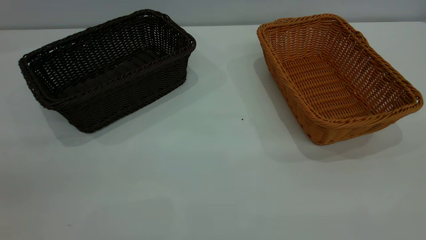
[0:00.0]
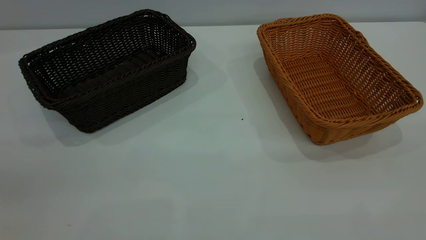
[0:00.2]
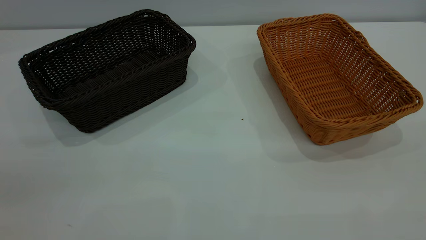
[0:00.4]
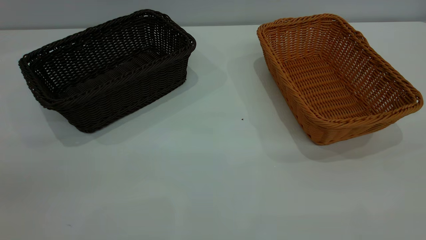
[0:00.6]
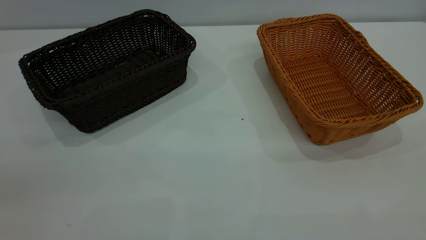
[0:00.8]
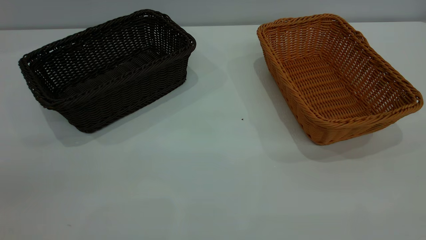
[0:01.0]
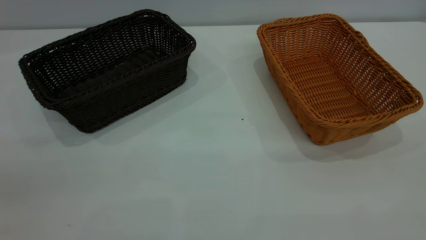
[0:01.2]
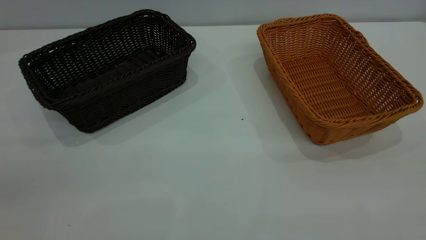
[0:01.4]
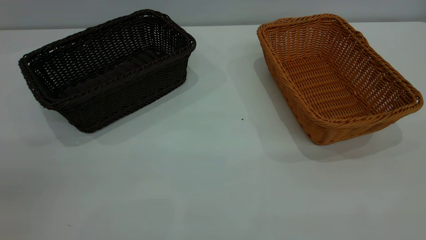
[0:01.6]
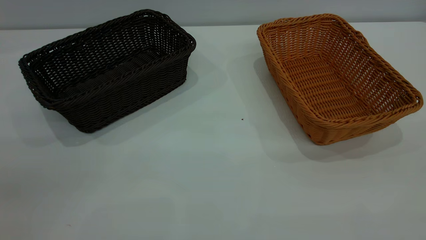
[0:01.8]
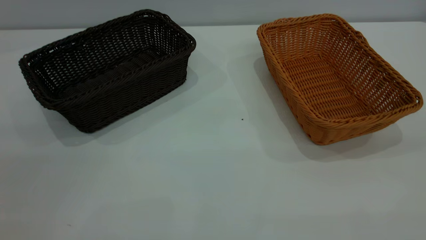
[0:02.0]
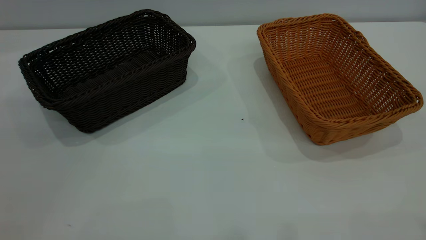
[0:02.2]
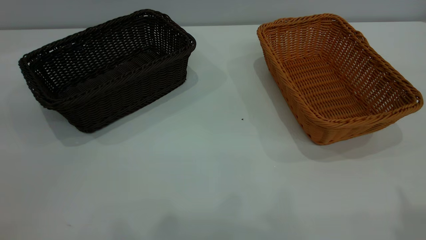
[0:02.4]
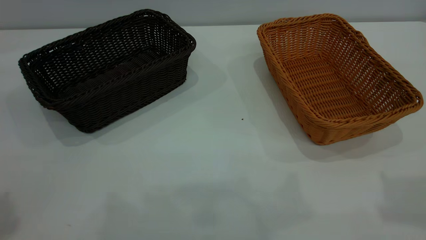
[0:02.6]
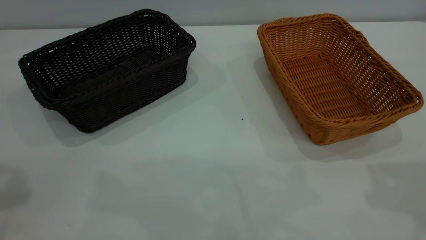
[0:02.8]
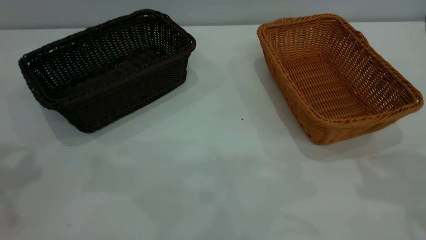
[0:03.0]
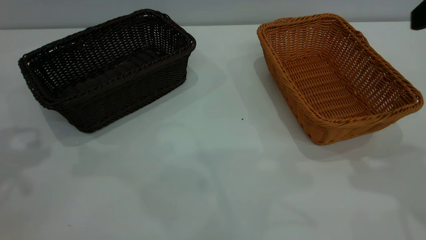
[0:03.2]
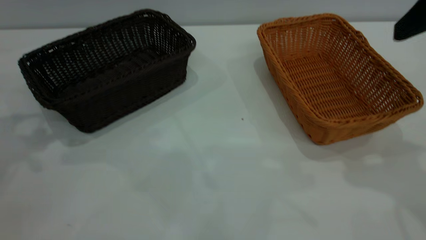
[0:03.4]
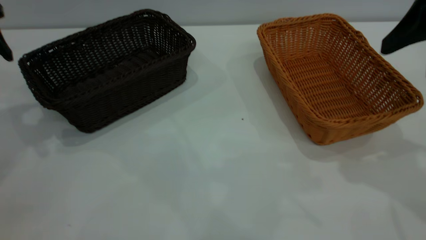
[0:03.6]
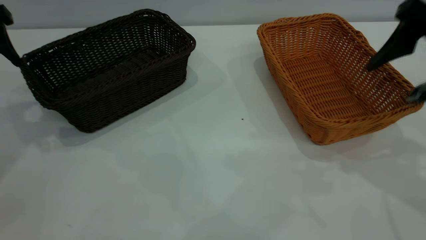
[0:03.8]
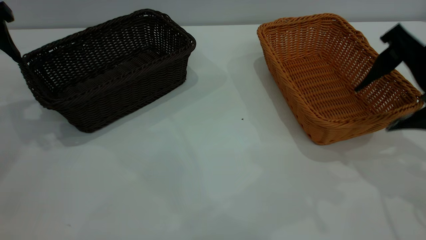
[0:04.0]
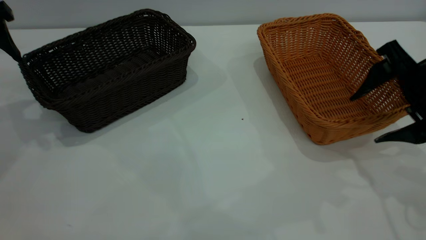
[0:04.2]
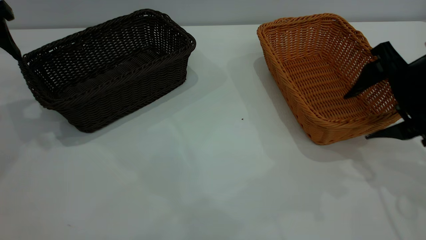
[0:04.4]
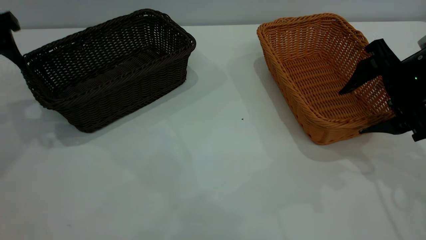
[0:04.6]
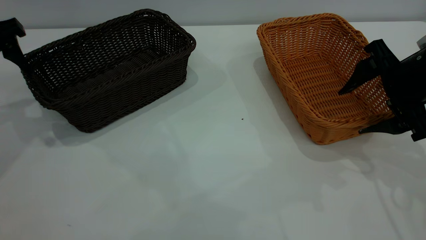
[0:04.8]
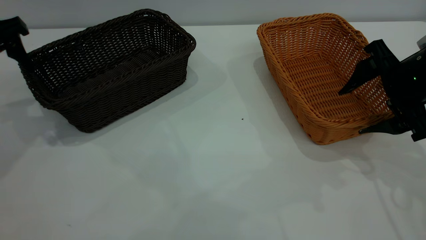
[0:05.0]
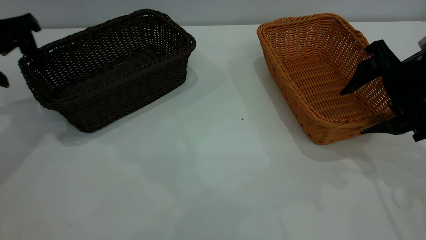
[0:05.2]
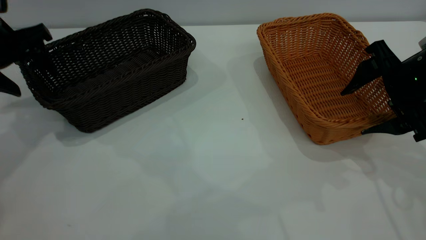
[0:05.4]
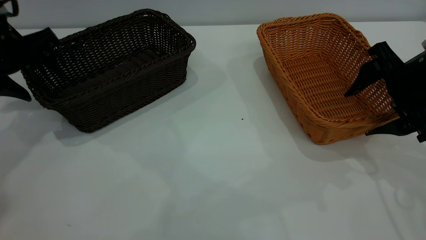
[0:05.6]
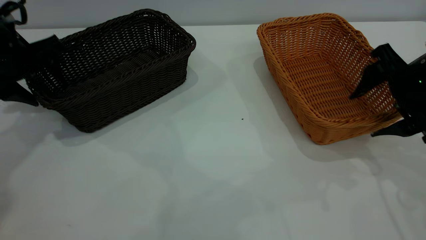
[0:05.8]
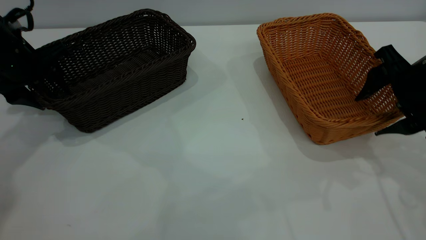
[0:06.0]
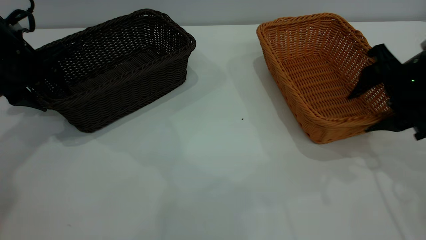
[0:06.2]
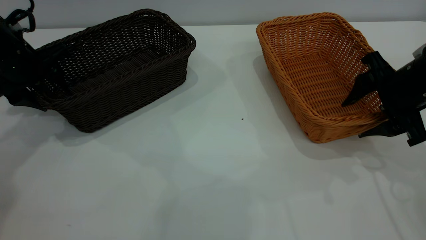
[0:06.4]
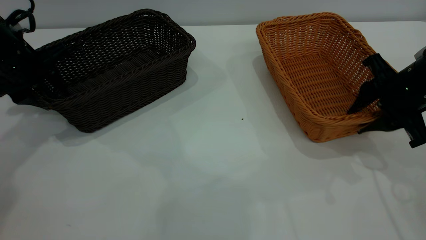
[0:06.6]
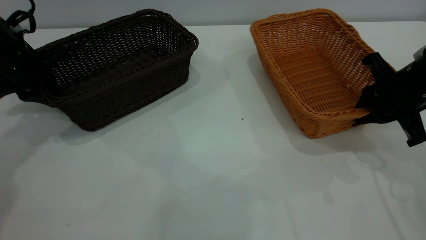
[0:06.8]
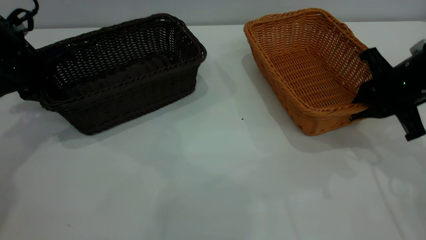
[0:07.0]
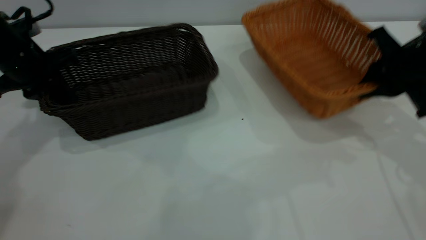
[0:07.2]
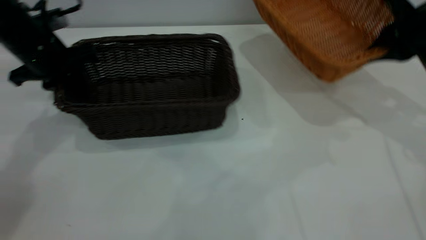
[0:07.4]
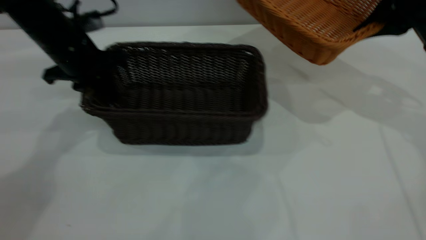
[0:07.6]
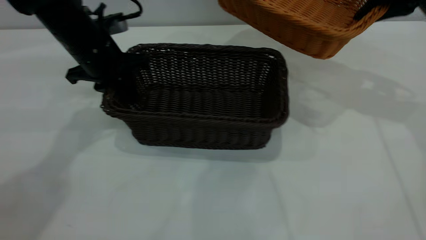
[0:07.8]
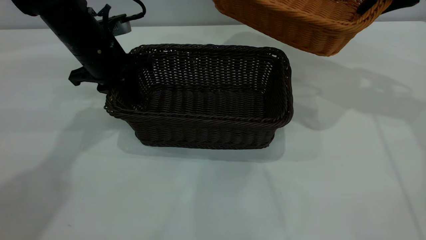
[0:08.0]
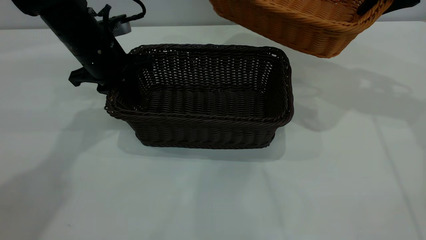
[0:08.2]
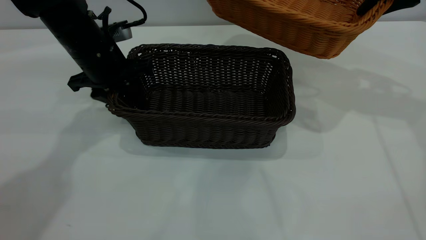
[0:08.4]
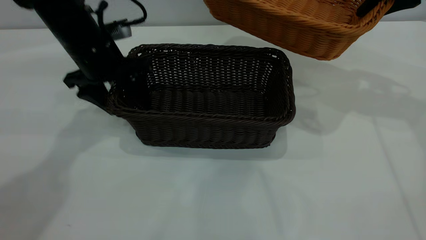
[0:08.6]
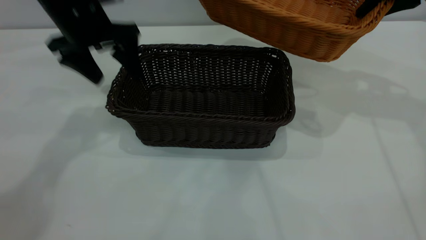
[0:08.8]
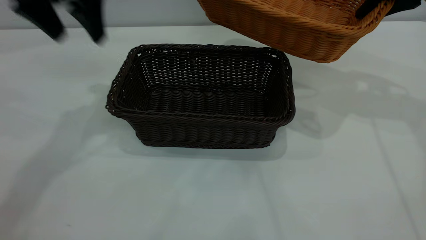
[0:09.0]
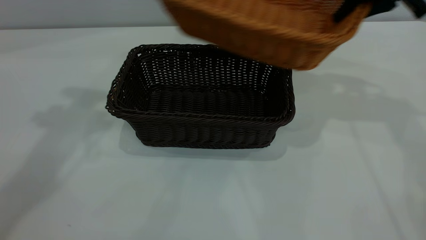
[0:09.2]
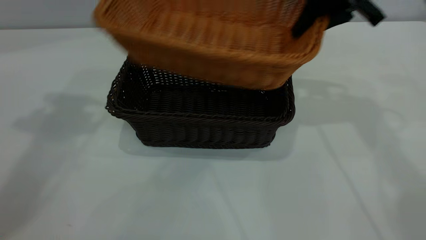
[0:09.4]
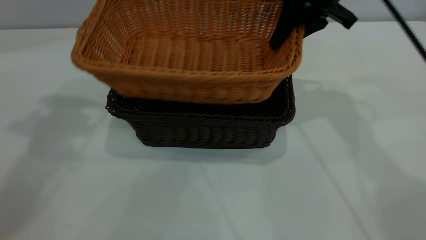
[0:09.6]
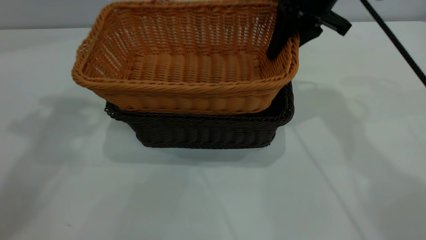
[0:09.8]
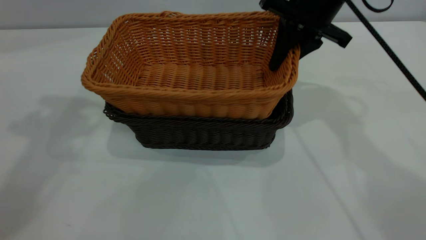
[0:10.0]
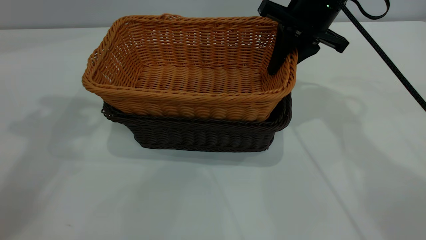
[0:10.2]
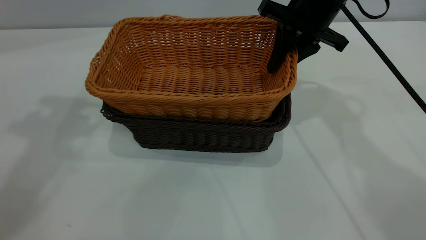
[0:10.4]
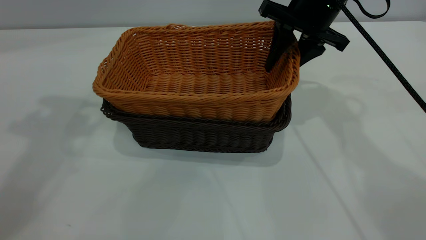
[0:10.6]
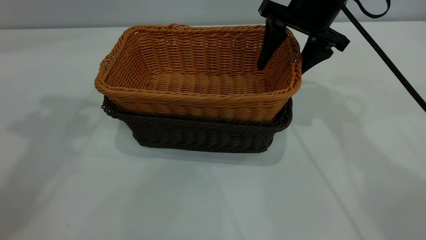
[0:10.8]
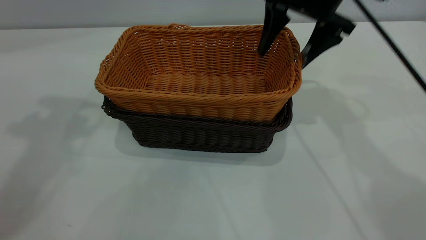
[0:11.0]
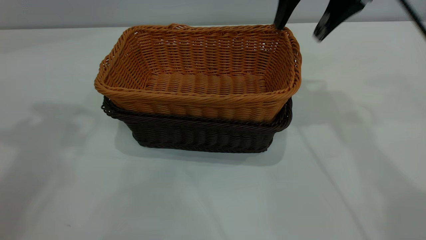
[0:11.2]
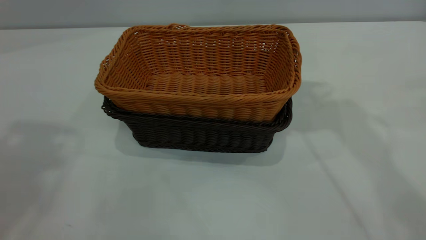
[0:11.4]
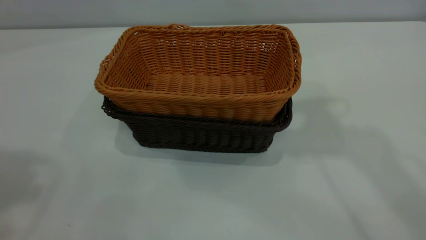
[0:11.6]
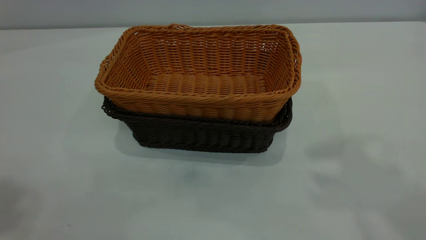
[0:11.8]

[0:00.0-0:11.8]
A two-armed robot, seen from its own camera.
Task of the whole recording: the left gripper grasp the black basket and place it in the center of the table, the right gripper grasp the brown basket and place it inside the black one.
Step, 0:00.0 to 0:07.2: Pick up the light basket with the right gripper.
Step, 0:07.4 to 0:08.8: Move the dark basket to the center of view.
Step, 0:09.0 to 0:11.2: Place the light basket on the dark basket.
0:00.0 to 0:01.4: Neither gripper changes place.
0:03.0 to 0:04.4: The left gripper goes some 15 cm forward and downward; the right gripper is displaced downward and forward by some 15 cm.
0:04.4 to 0:06.0: The left gripper moves downward, approximately 10 cm.
0:06.0 to 0:07.4: The right gripper shifts roughly 5 cm forward, and closes up; the left gripper heads to the right, covering roughly 5 cm, and closes.
0:07.4 to 0:08.8: The left gripper goes some 10 cm to the right and upward, and opens. The right gripper travels upward by some 5 cm.
0:08.8 to 0:10.4: The left gripper goes some 20 cm upward. Meanwhile the right gripper shifts roughly 15 cm to the left and downward.
0:10.4 to 0:11.8: The left gripper goes approximately 20 cm backward and upward, while the right gripper shifts some 35 cm upward and backward, and opens.
